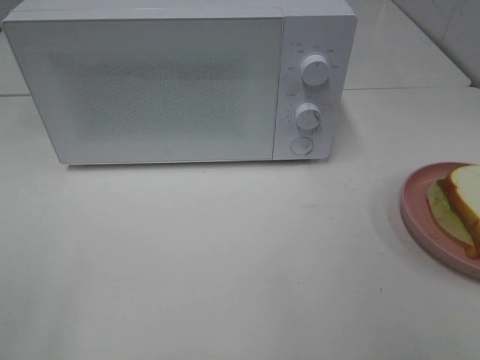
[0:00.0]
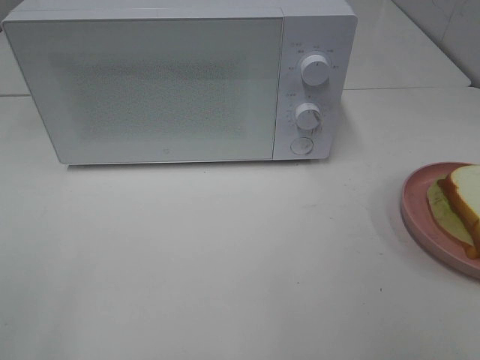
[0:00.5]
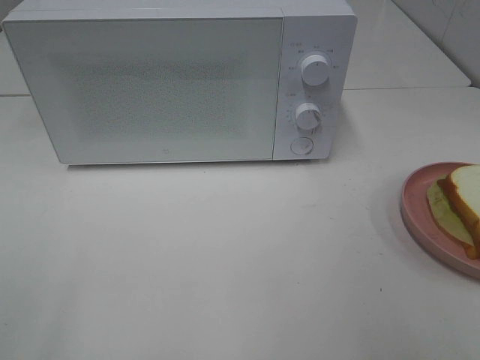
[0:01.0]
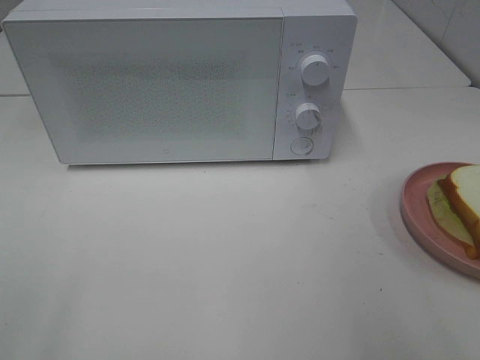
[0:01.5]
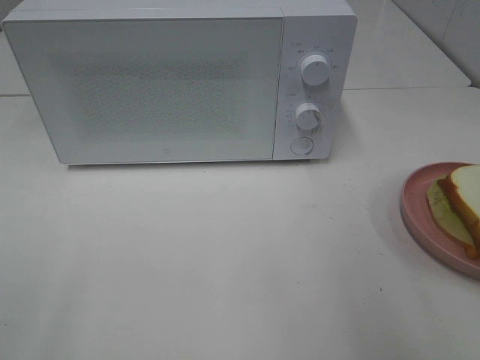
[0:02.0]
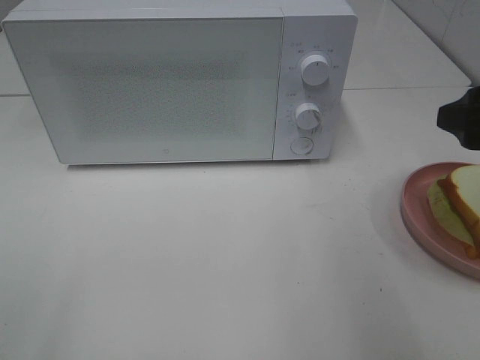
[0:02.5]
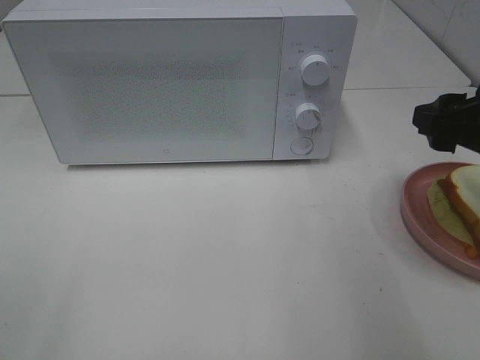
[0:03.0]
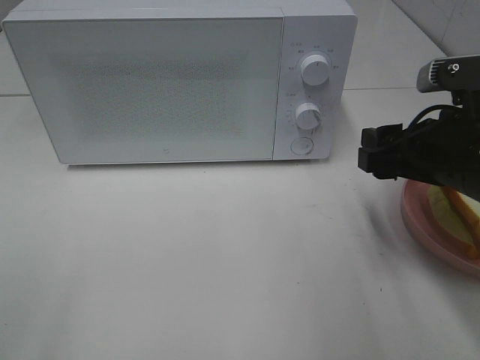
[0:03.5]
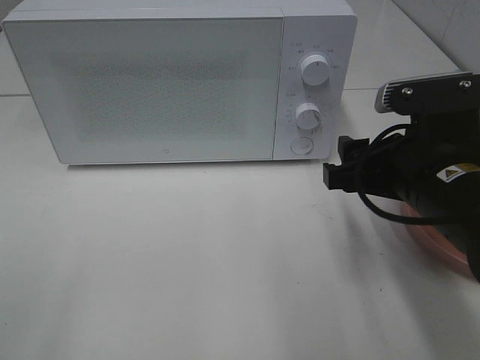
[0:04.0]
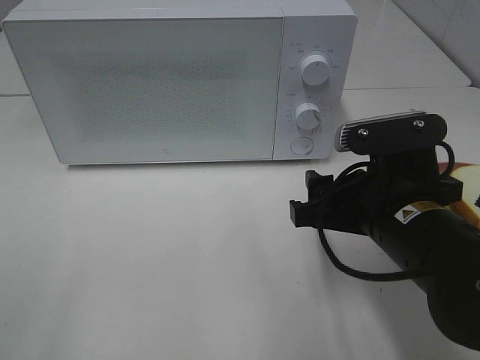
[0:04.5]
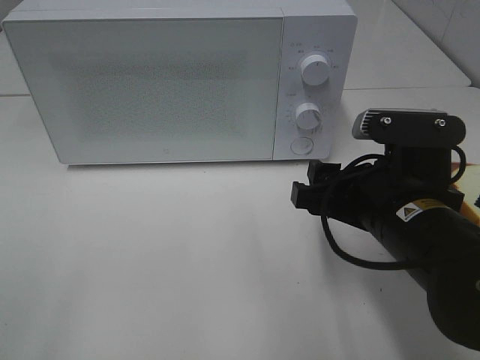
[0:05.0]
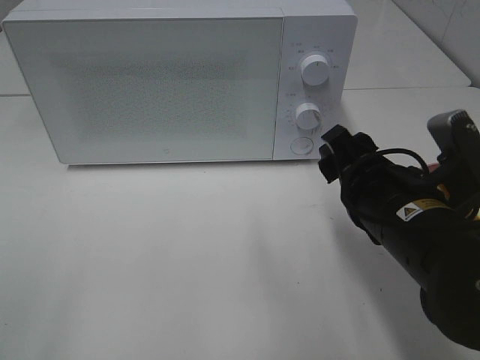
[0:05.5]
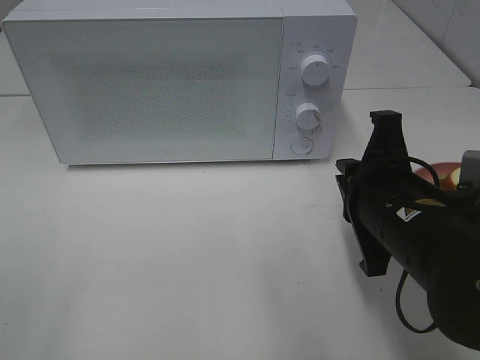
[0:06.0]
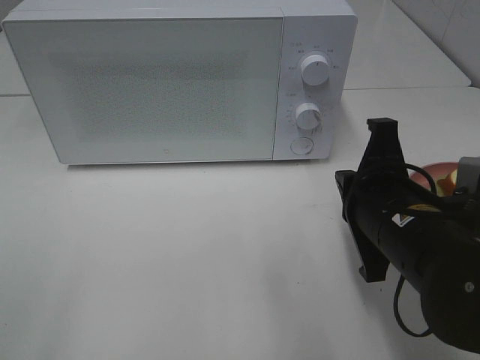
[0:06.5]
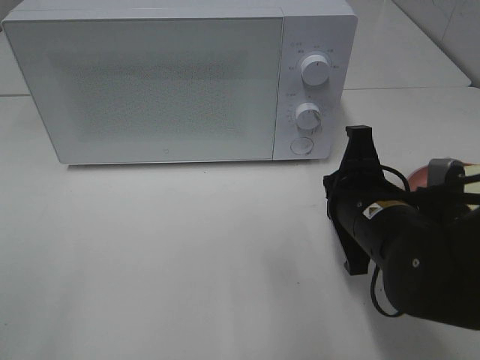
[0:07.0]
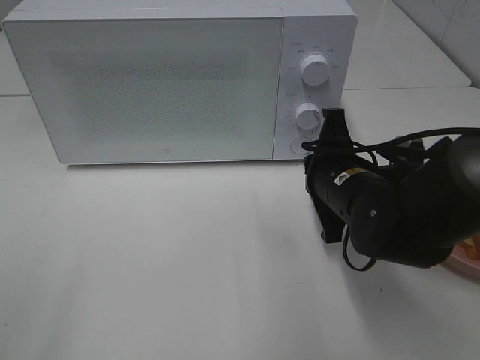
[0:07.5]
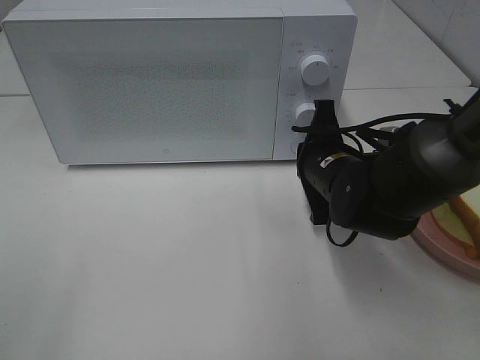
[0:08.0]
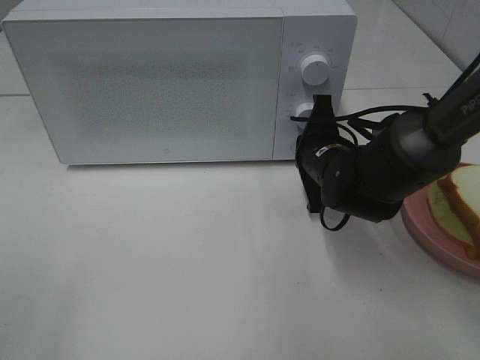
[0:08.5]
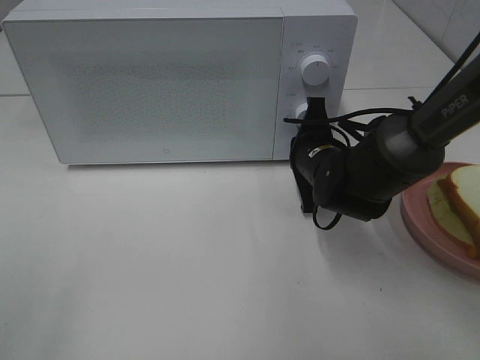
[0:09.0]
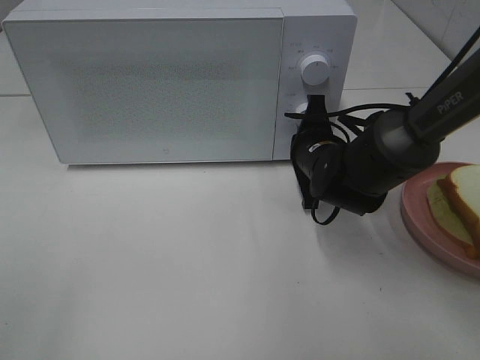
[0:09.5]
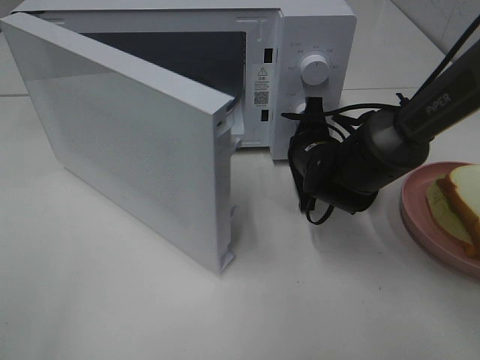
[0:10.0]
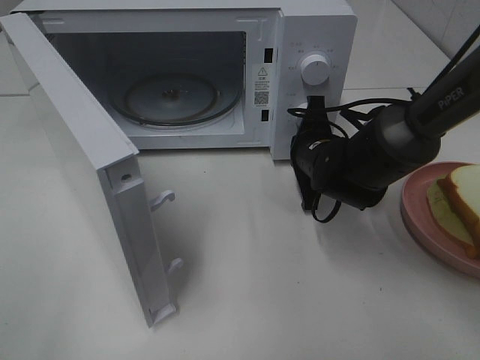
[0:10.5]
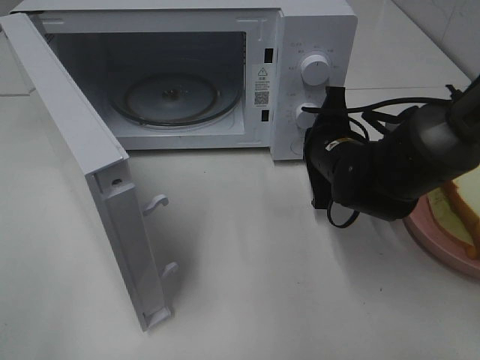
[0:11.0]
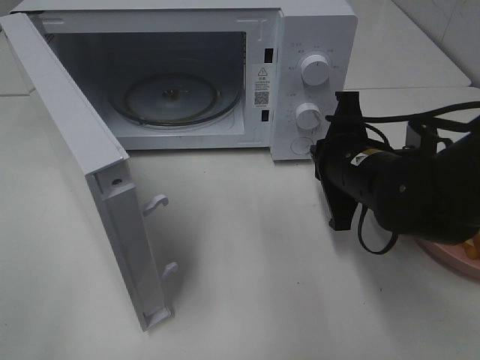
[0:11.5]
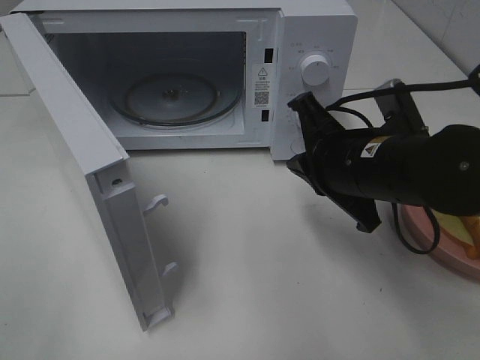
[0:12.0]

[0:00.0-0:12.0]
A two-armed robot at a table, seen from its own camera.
Task of the whole recording: Heat Sandwich.
Step, 0:00.0 to 0:11.0: Right hand: press the switch.
0:02.0 to 0:04.0: The right gripper heads to the left, downward and forward, covering some 15 cm.
0:04.0 to 0:06.0: The right gripper closes up.
0:06.0 to 0:08.0: The right gripper shifts roughly 15 cm forward and downward.
0:08.0 to 0:10.0: The right gripper travels forward by some 5 cm.
0:10.0 to 0:12.0: The right gripper is displaced backward and upward by roughly 15 cm.

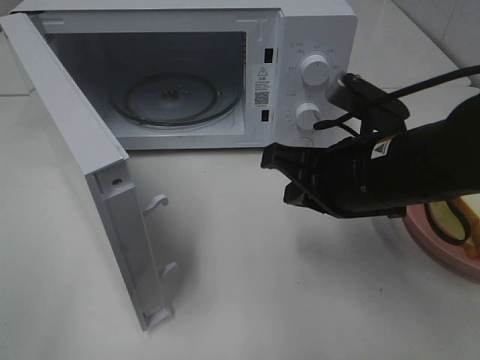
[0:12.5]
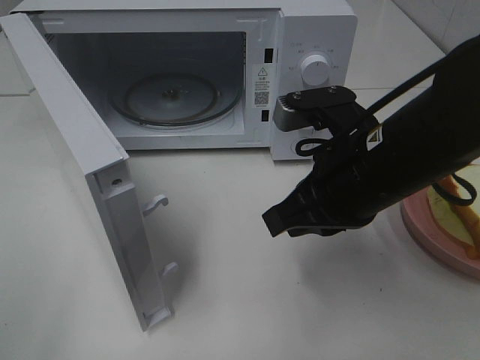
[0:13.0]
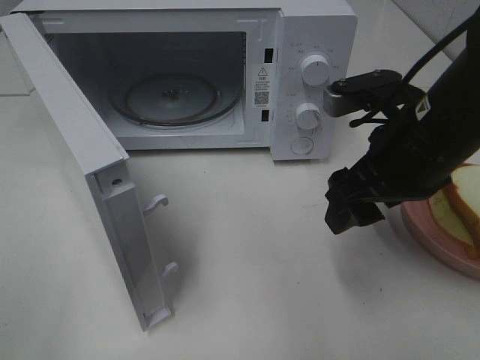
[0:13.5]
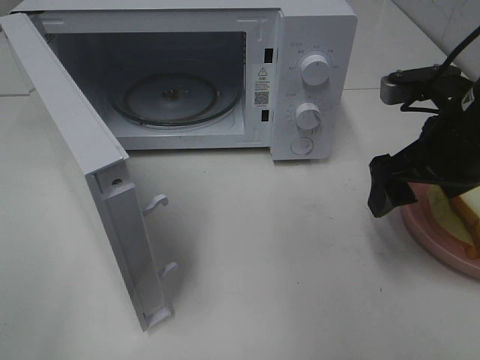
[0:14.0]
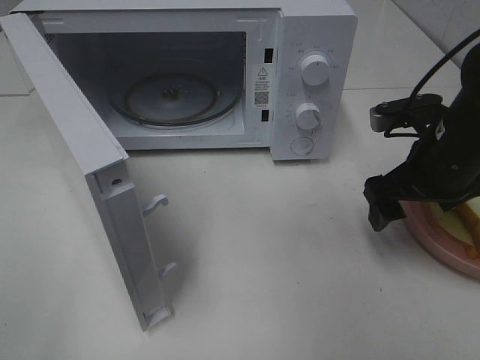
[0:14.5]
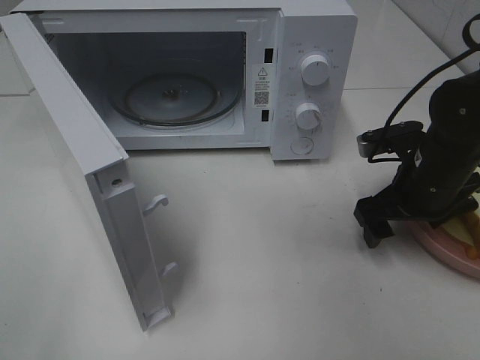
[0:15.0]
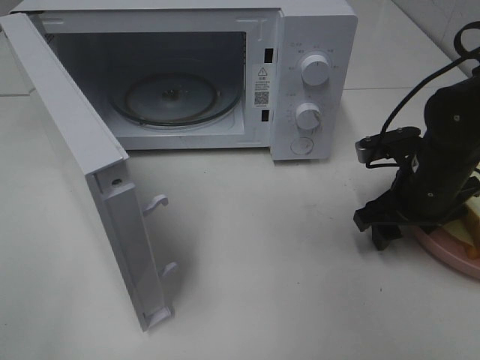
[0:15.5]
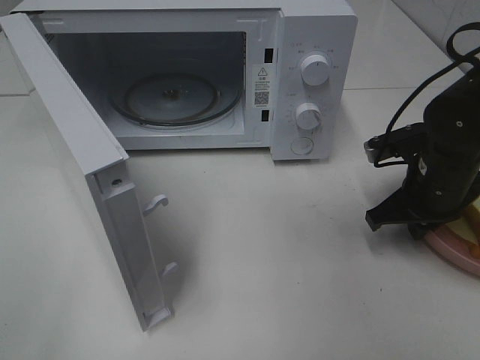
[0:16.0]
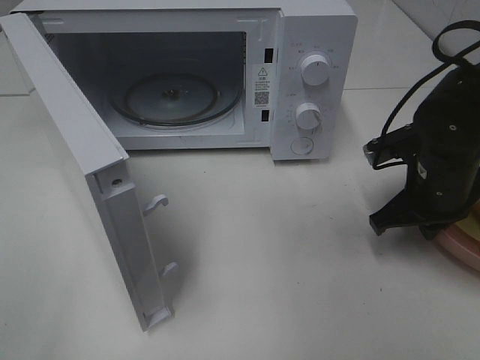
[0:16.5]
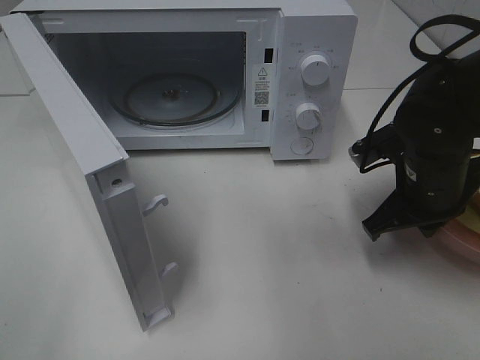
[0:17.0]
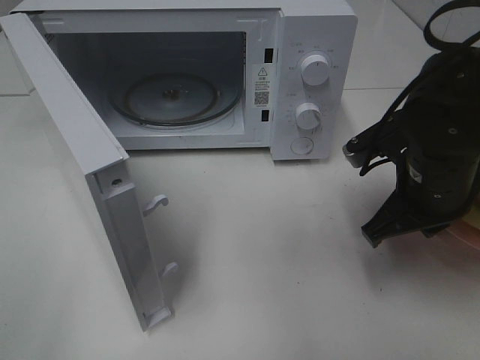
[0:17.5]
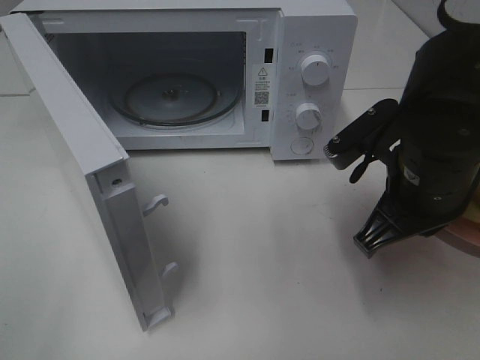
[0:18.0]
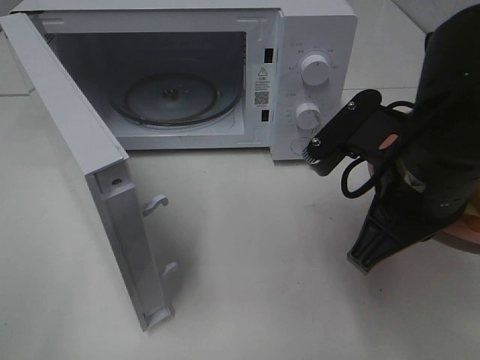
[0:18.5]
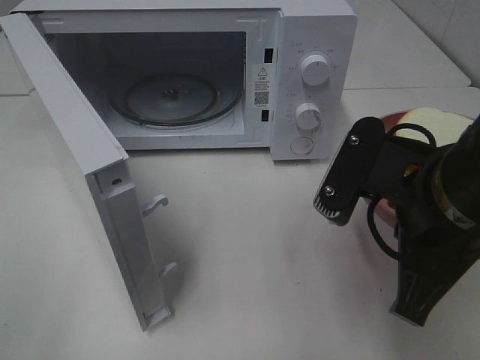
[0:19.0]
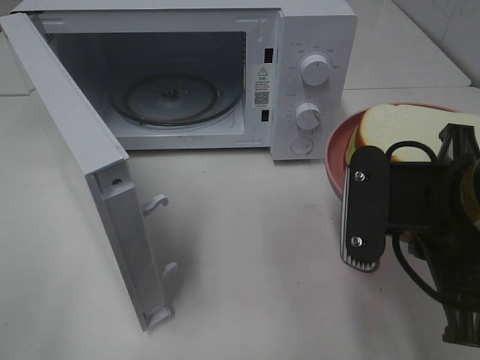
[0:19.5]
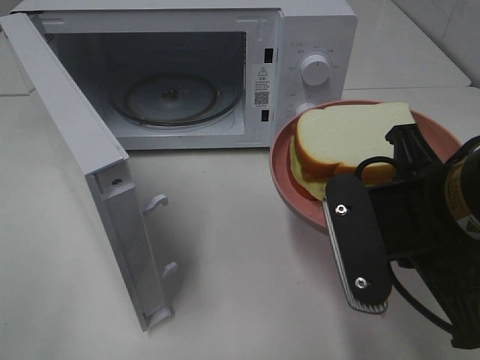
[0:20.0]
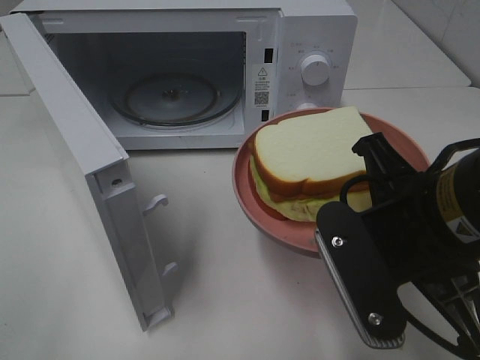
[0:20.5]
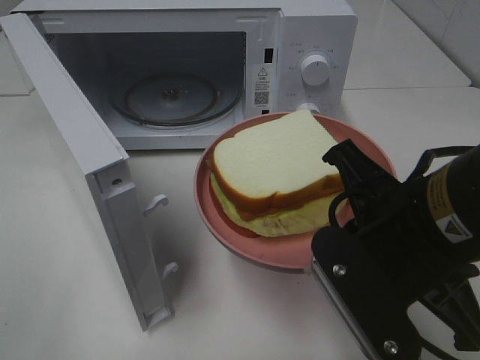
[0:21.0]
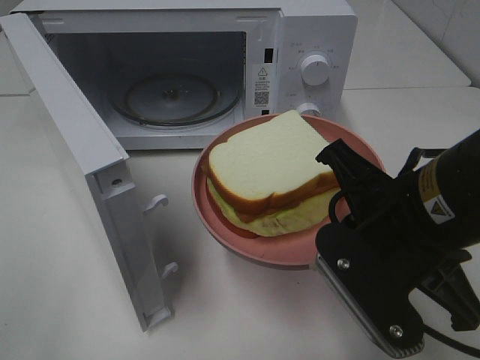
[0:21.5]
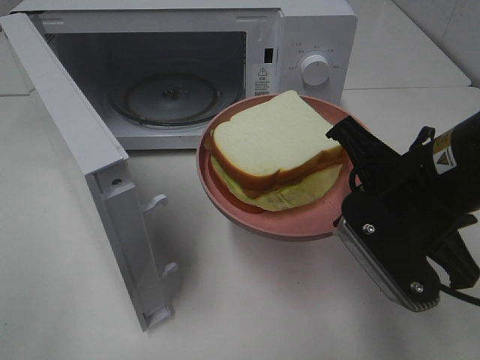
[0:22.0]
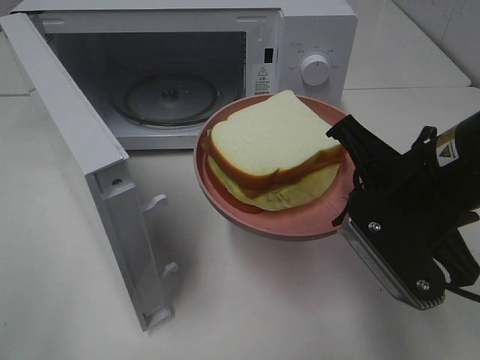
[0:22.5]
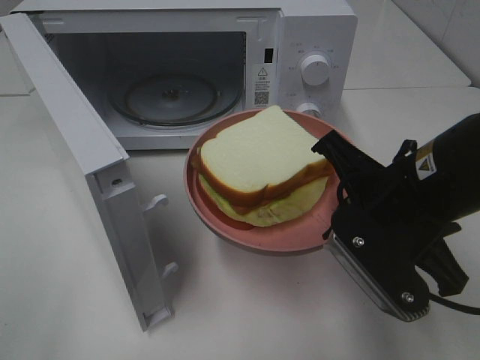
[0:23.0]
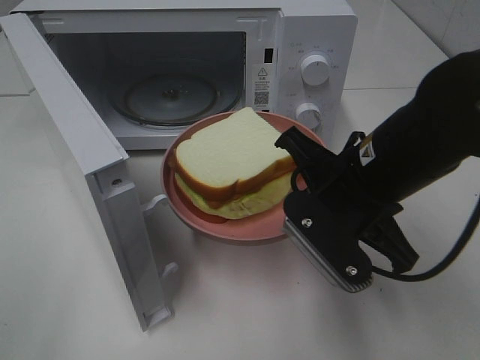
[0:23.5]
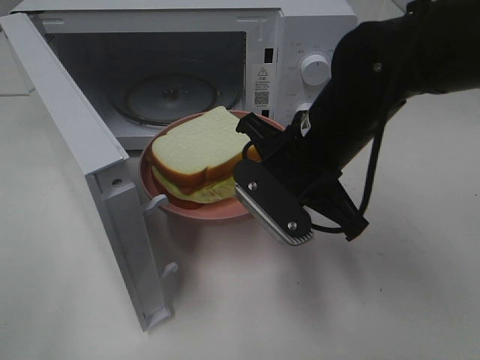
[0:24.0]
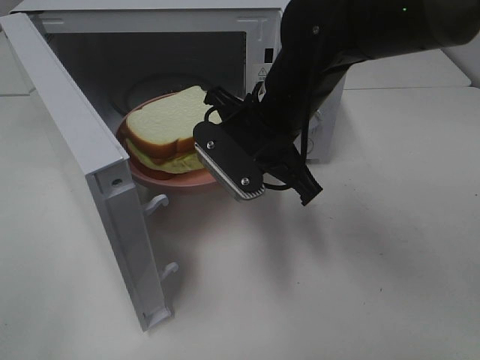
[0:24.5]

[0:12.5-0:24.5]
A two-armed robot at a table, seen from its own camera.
Task of the whole recording: Heat Sandwich.
Step, 0:12.5 to 0:16.0: Right hand: grab the plate with the sandwich.
0:12.5 to 0:14.5: The right gripper moves to the right and forward, about 10 cm, and opens.
0:14.5 to 0:16.5: The right gripper closes its fingers.
0:16.5 to 0:18.5: The right gripper is displaced backward, upward and to the left by some 15 cm.
0:20.5 to 0:22.5: The right gripper shifts by approximately 5 cm.
0:22.5 to 0:24.5: The right gripper heads forward and to the left, covering some 15 cm.

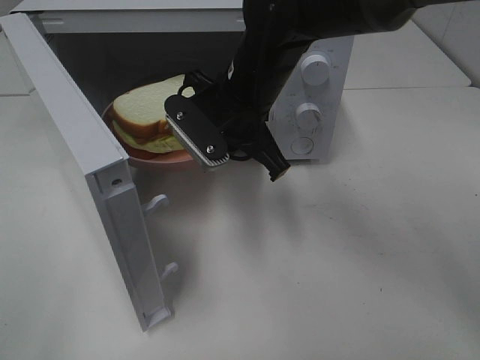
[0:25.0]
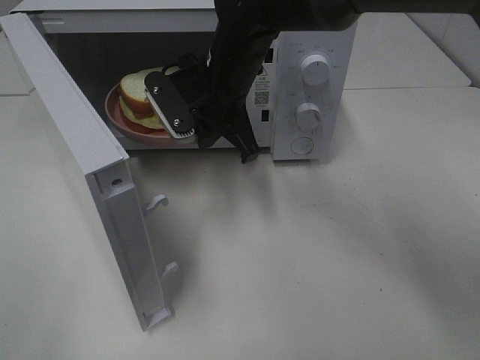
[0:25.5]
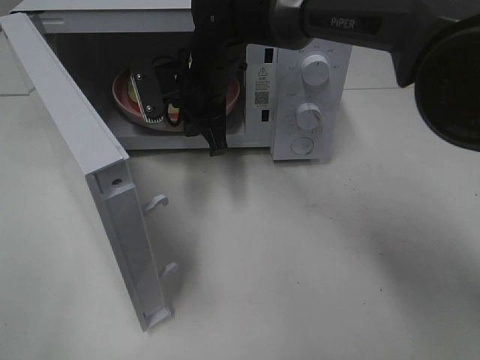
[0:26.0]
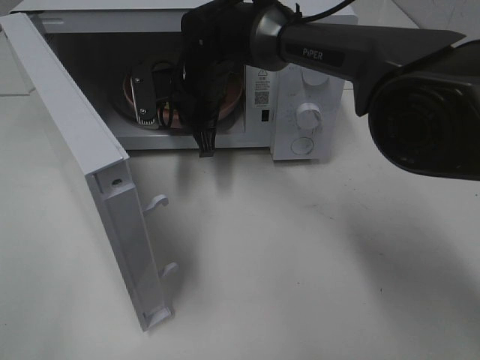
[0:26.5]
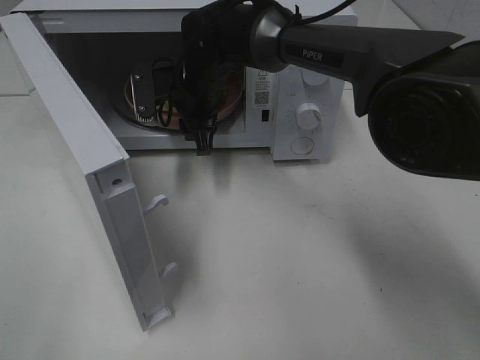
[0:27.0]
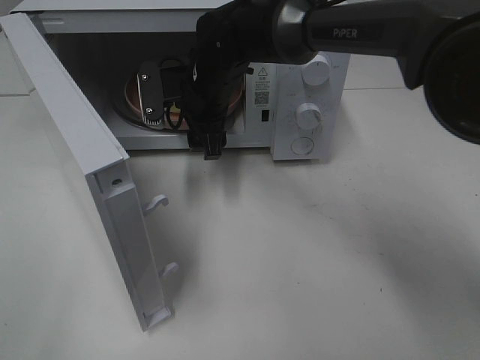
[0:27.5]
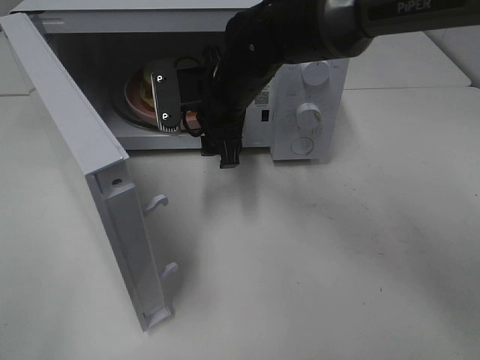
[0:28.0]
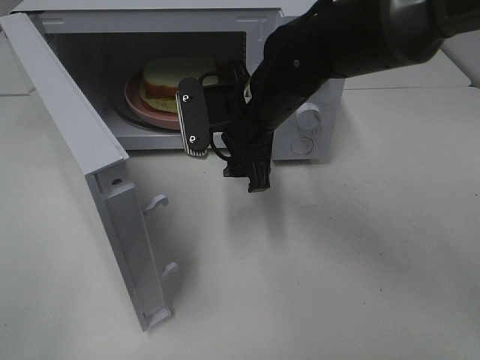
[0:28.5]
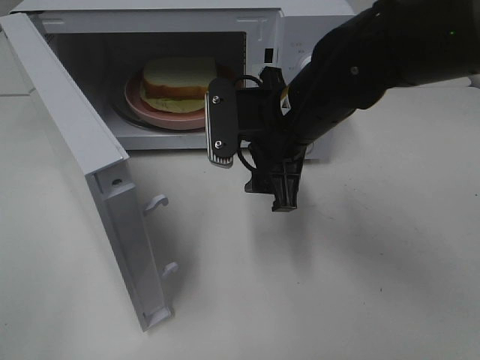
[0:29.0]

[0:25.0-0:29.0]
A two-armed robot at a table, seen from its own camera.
Task of the whole recording: Heat Sandwich.
Step, 0:25.0 to 0:27.5: Right hand: place the plate in the microwave.
0:25.0 to 0:27.0: The right gripper travels forward and to the left by roughly 10 cm, and opens up.
0:27.0 to 0:29.0: The right gripper goes roughly 20 cm backward and to the right.
